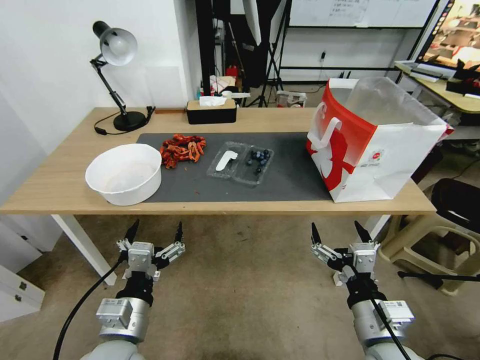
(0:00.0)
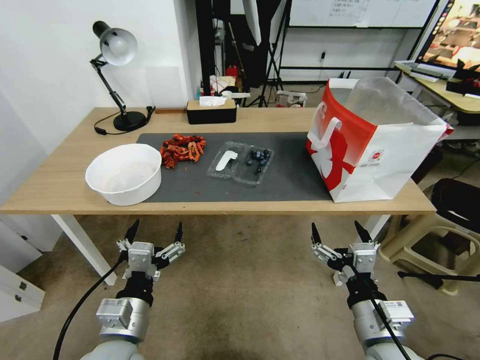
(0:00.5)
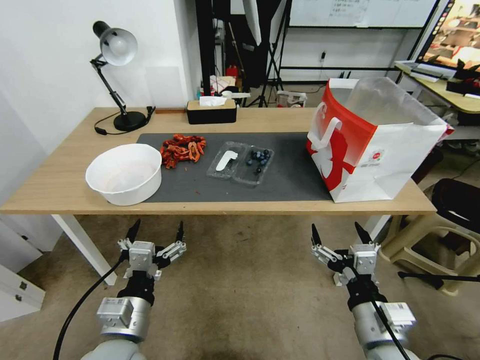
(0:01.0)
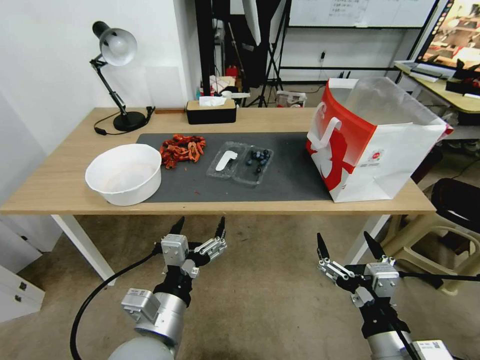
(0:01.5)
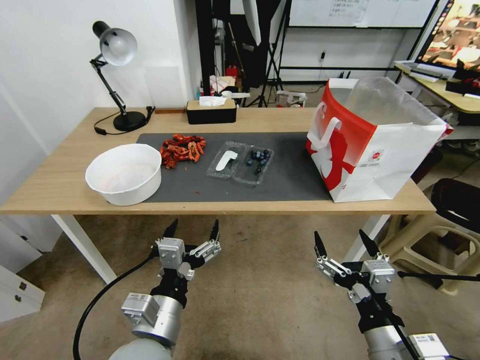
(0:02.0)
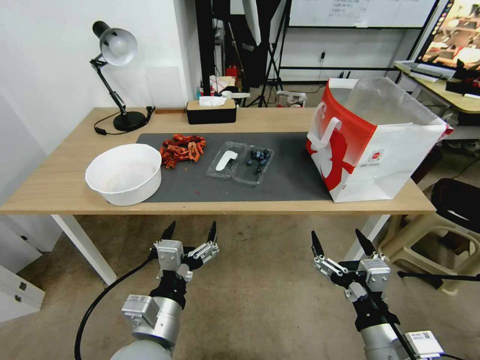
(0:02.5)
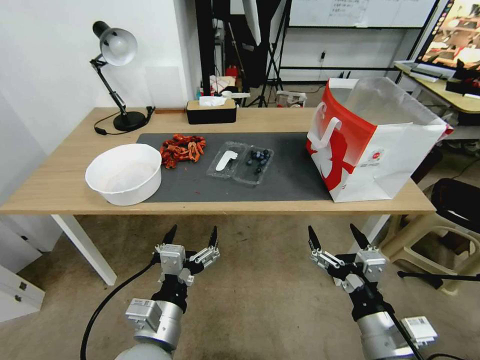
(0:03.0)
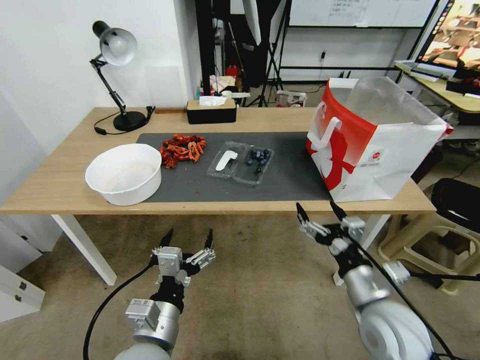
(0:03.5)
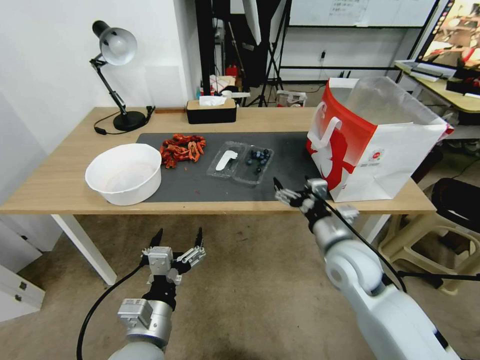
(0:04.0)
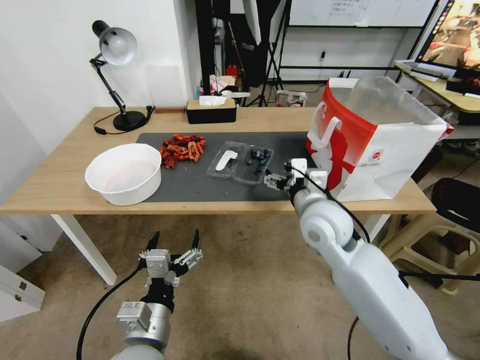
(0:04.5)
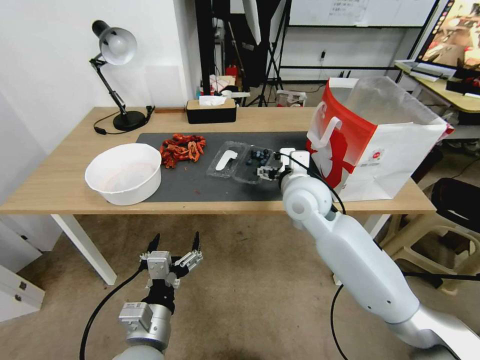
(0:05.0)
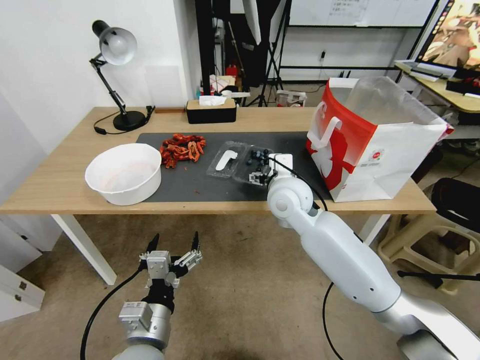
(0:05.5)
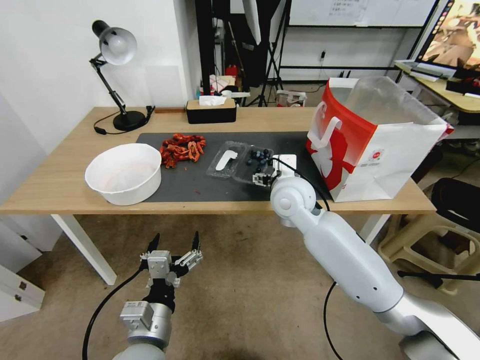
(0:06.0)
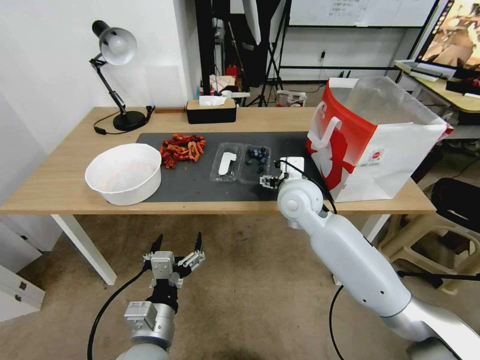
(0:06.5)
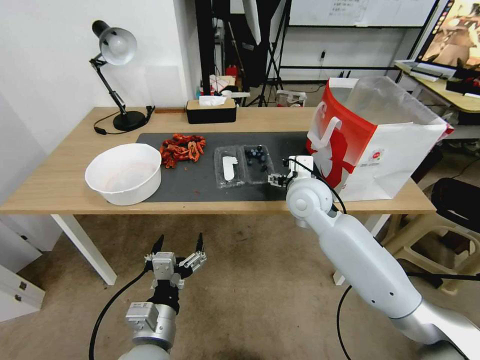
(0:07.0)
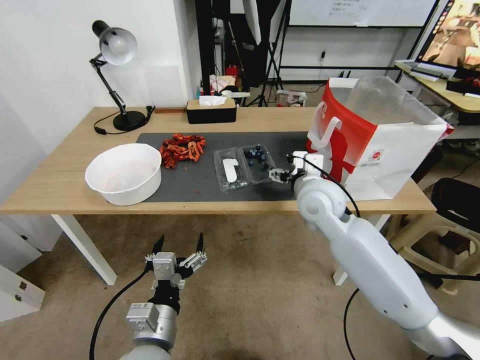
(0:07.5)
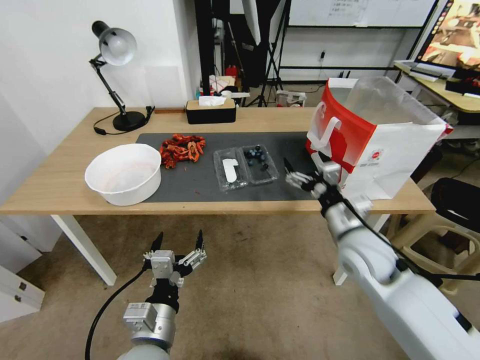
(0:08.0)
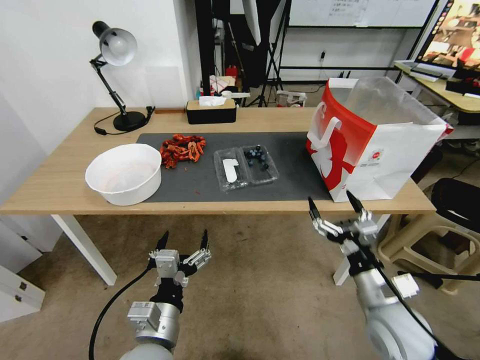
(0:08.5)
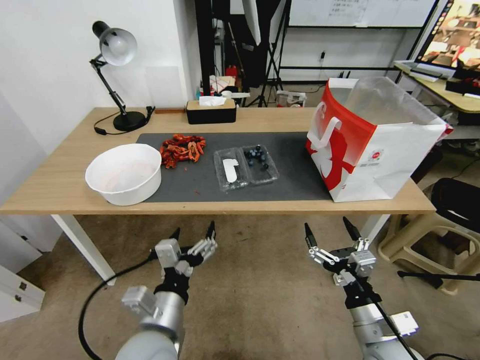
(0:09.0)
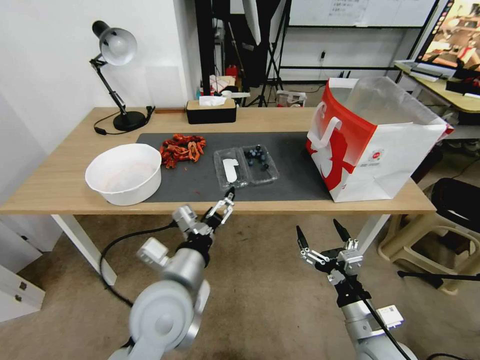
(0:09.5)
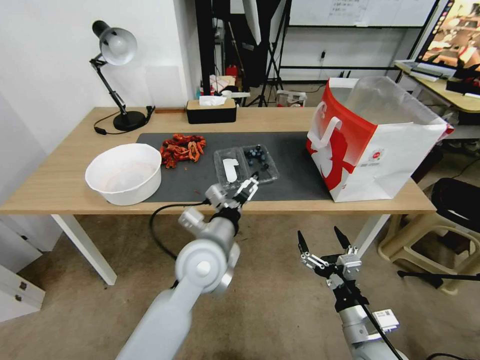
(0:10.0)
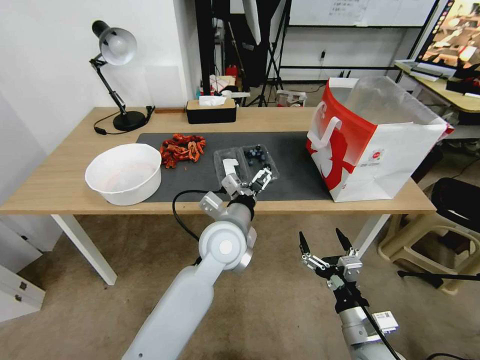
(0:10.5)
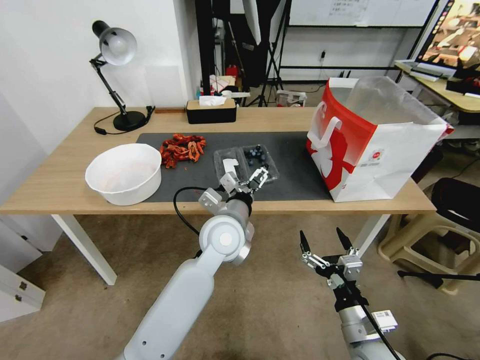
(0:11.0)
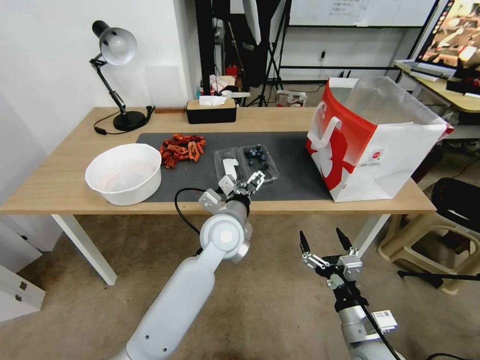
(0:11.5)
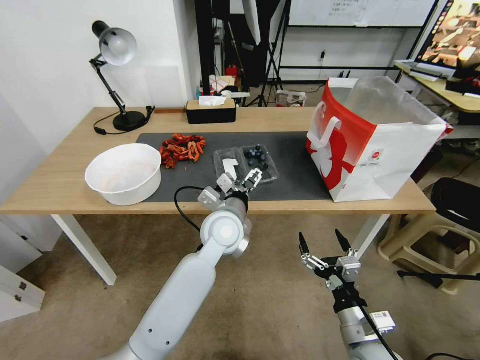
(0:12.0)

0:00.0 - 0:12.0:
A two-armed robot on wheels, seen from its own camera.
Task of the whole recording: Close the takeout container lid, then place the container into the takeout bag.
0:02.0 - 0:04.0: The right gripper goes roughly 20 cm forward.
0:04.0 - 0:06.0: The right gripper goes approximately 15 cm forward, to the left and upward.
0:06.0 - 0:08.0: The right gripper is displaced to the right and backward by roughly 15 cm.
0:08.0 - 0:10.0: The left gripper moves forward, to the right and upward, approximately 20 cm; the right gripper moves backward and downward, some 20 cm.
0:10.0 - 0:12.0: The left gripper travels forward by approximately 10 cm.

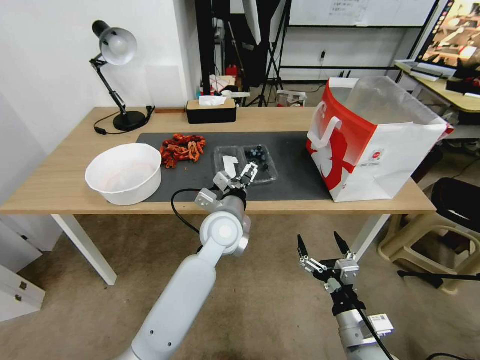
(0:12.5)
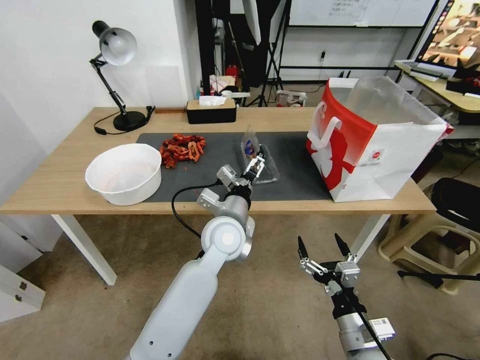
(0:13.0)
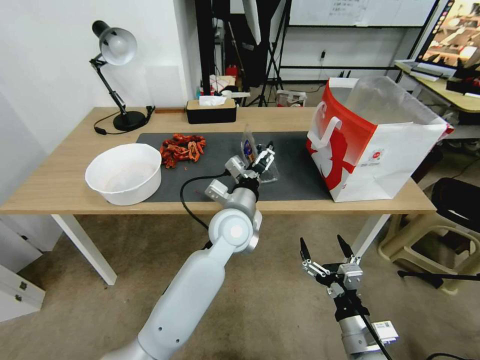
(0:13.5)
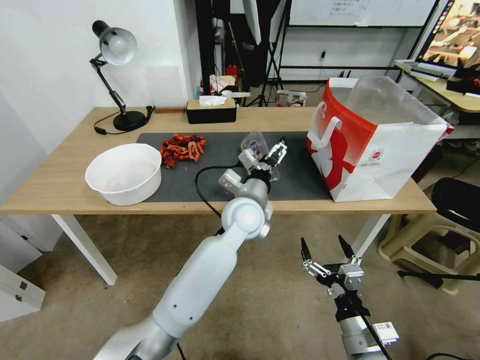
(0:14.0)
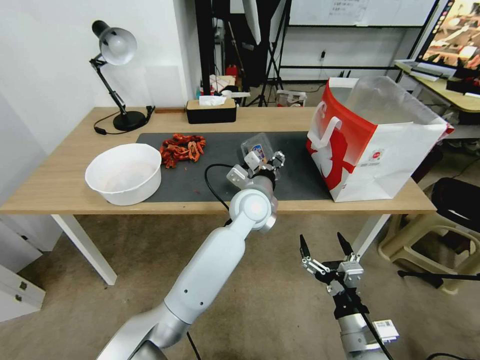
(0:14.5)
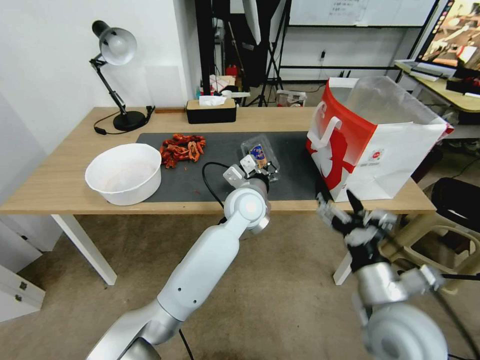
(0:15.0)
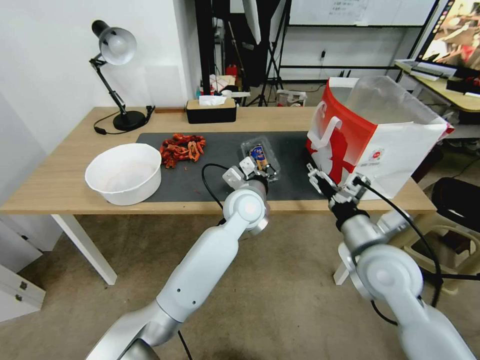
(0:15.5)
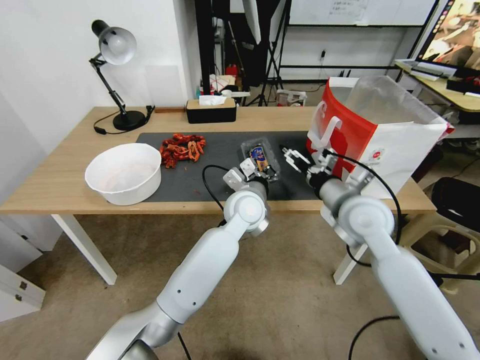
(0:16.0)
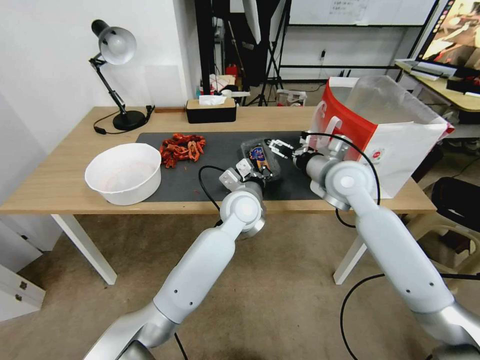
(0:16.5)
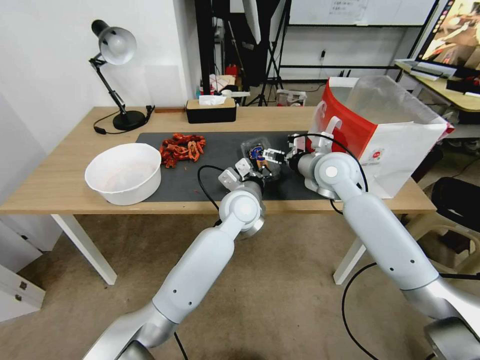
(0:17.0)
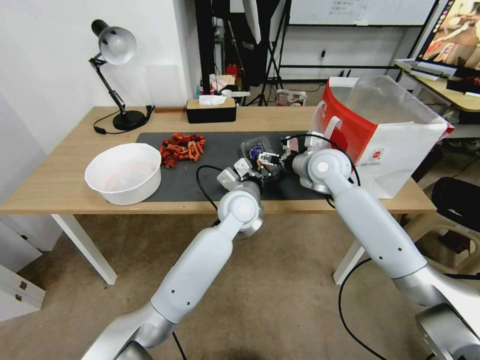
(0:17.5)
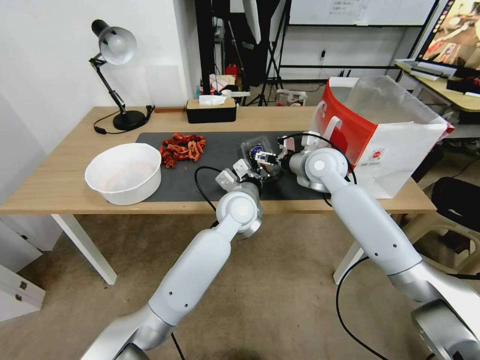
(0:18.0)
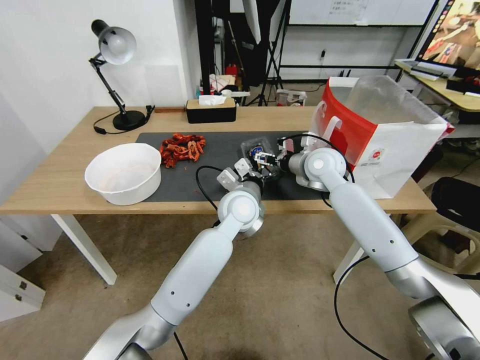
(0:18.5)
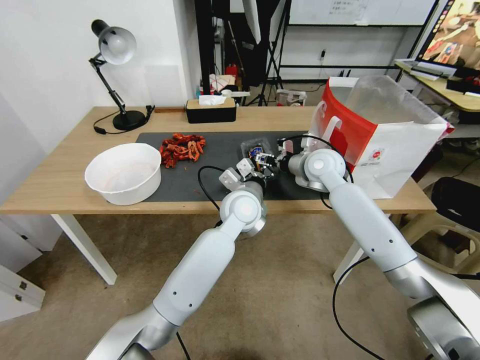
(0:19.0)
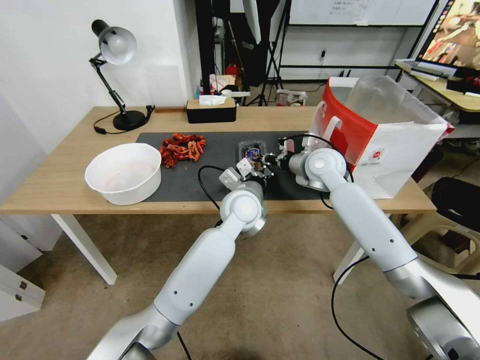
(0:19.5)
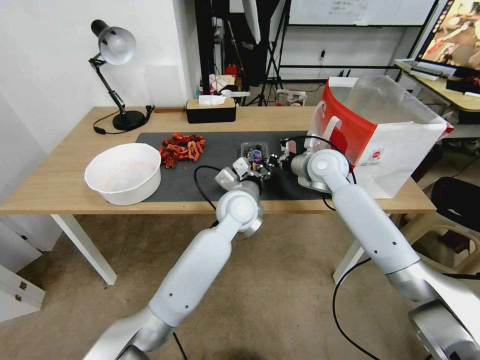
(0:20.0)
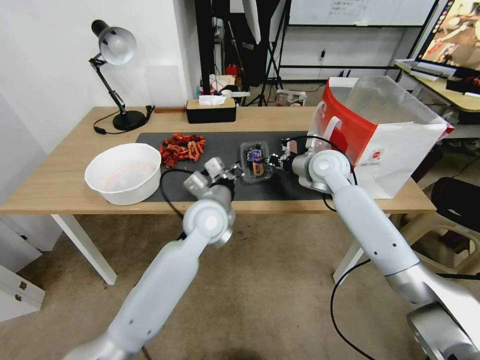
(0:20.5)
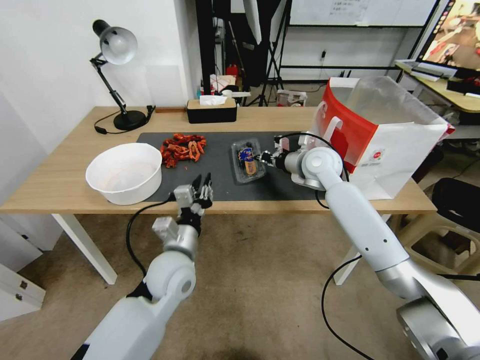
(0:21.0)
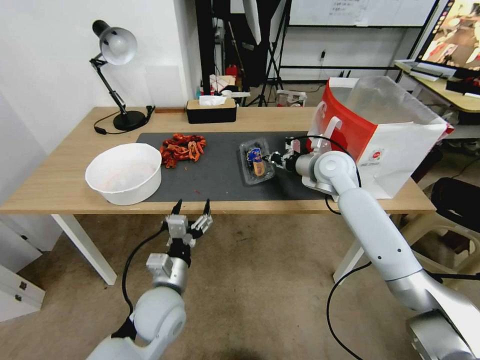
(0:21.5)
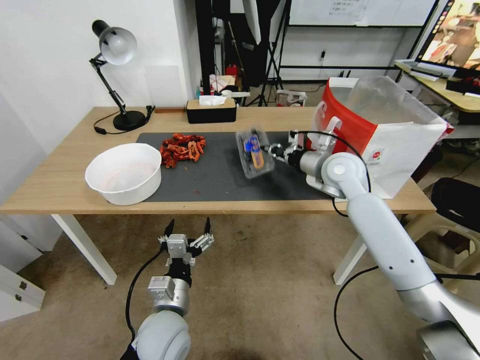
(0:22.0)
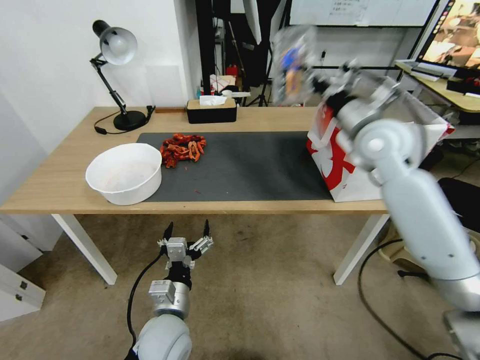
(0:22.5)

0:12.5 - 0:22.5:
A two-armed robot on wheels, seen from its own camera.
Task of the whole recording: Close the takeout container lid, then place the container into the takeout bag.
0:12.5 - 0:14.5: The left gripper moves to the right, roughly 5 cm, and closes its fingers.
0:14.5 - 0:16.5: The right gripper travels forward and upward by approximately 35 cm, while the left gripper closes its fingers.
0:16.5 - 0:18.5: The right gripper travels forward by approximately 10 cm.
0:18.5 - 0:20.5: The right gripper closes its fingers, while the left gripper moves to the left, some 5 cm.
0:20.5 - 0:22.5: The left gripper moves backward and downward, approximately 25 cm, and opens up. Meanwhile the right gripper goes approximately 15 cm upward, to the right and backward.

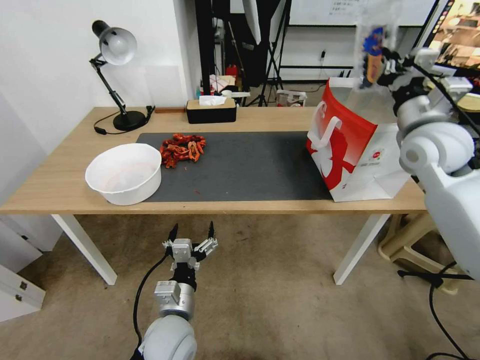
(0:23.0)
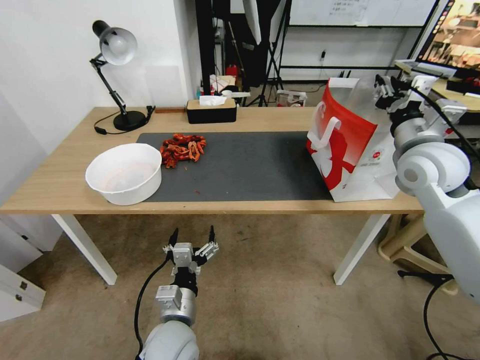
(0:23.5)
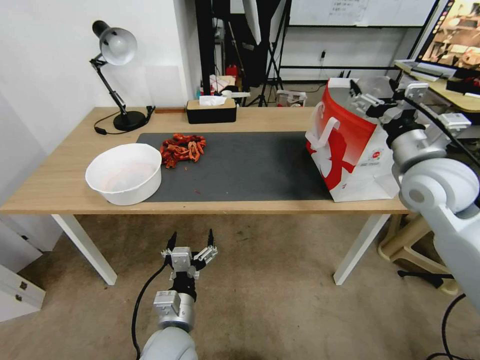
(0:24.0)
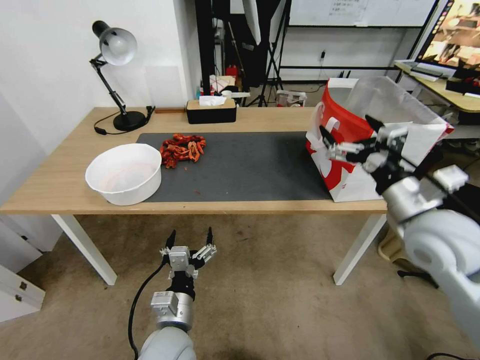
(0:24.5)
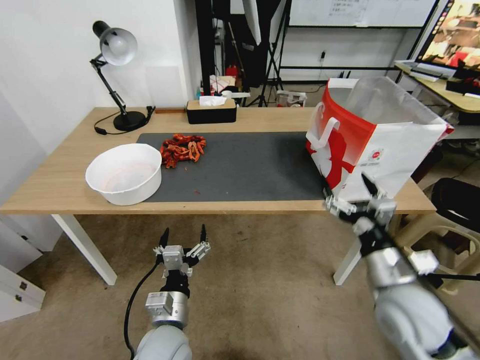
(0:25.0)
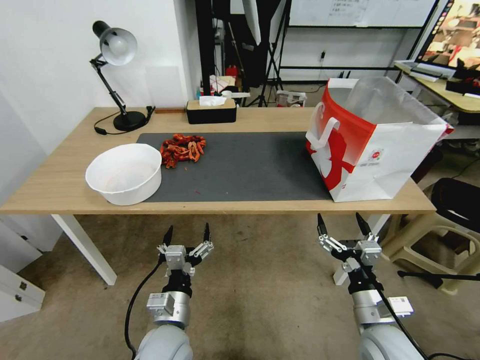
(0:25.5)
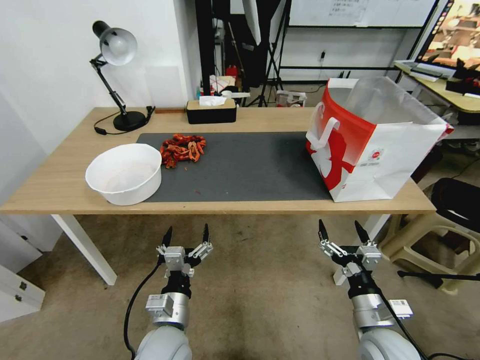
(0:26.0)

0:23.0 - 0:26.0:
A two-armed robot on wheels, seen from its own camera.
Task of the whole recording: Close the takeout container lid, then place the container into the takeout bag.
0:23.0 - 0:24.5: The right gripper moves backward and downward, roughly 15 cm, and opens up.
0:24.5 - 0:26.0: The right gripper shifts some 25 cm downward and backward.
